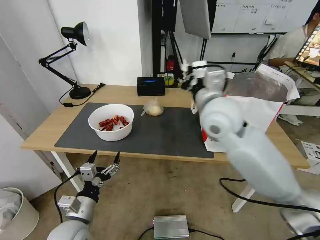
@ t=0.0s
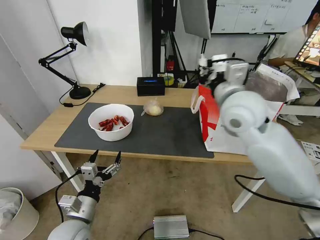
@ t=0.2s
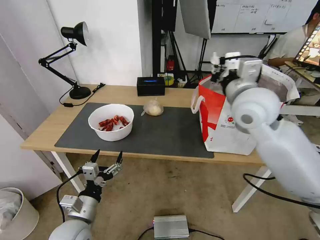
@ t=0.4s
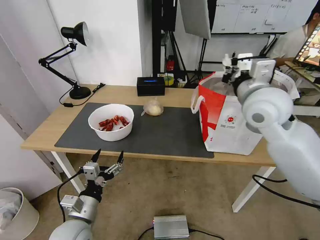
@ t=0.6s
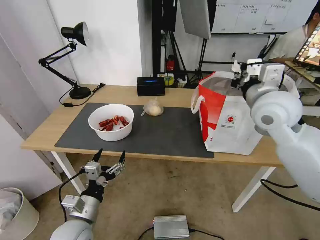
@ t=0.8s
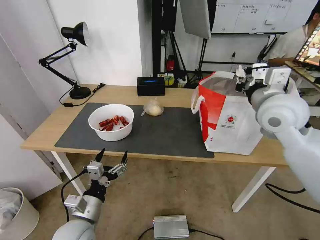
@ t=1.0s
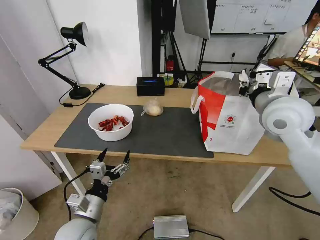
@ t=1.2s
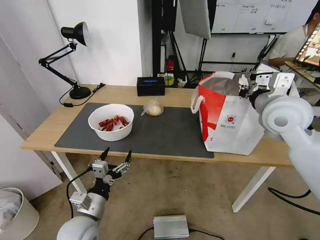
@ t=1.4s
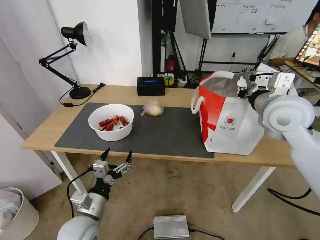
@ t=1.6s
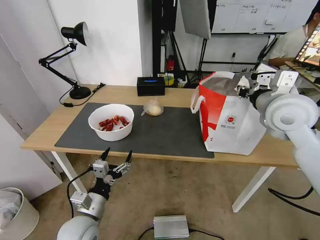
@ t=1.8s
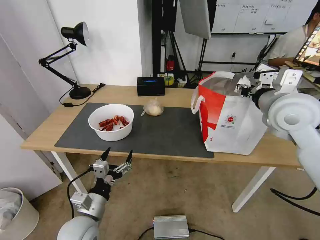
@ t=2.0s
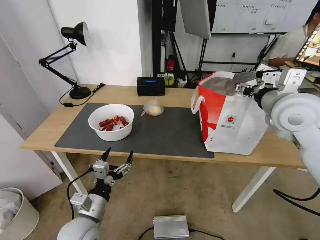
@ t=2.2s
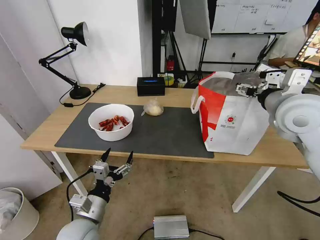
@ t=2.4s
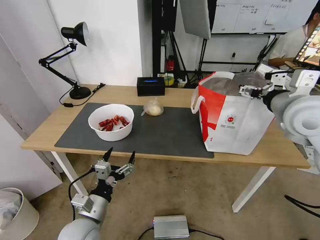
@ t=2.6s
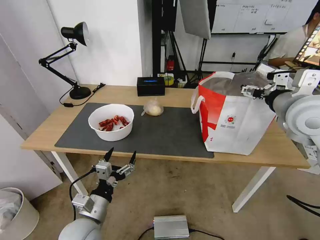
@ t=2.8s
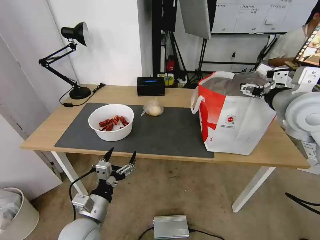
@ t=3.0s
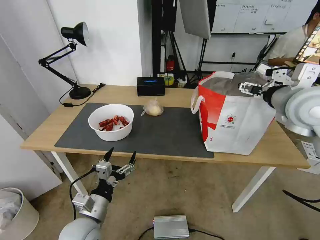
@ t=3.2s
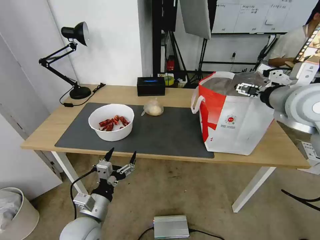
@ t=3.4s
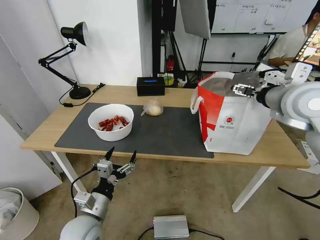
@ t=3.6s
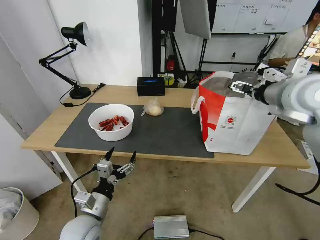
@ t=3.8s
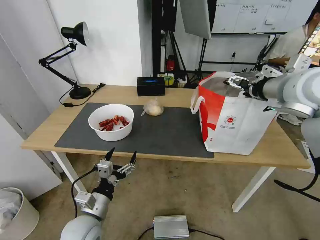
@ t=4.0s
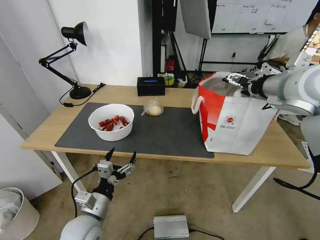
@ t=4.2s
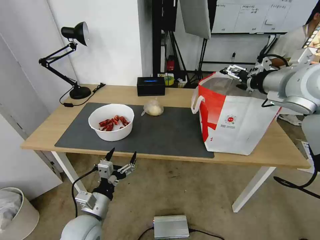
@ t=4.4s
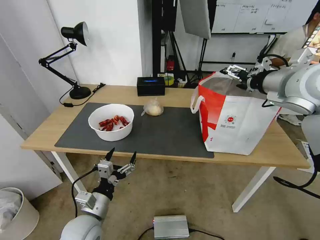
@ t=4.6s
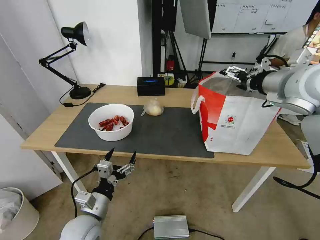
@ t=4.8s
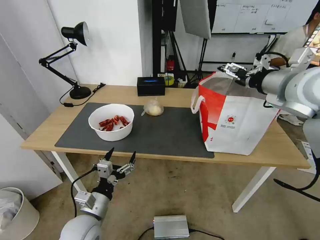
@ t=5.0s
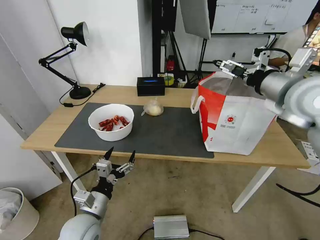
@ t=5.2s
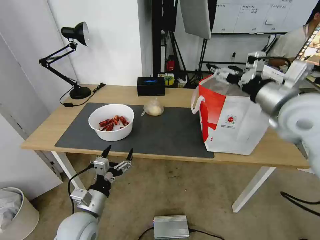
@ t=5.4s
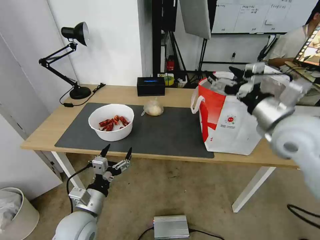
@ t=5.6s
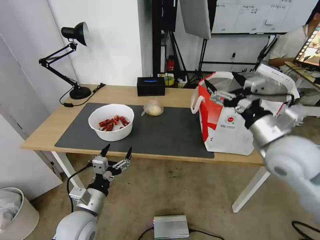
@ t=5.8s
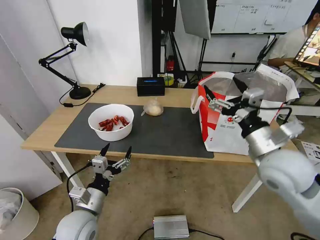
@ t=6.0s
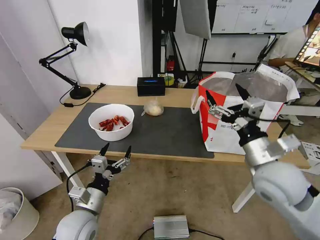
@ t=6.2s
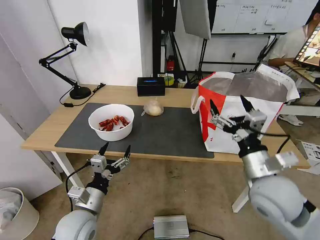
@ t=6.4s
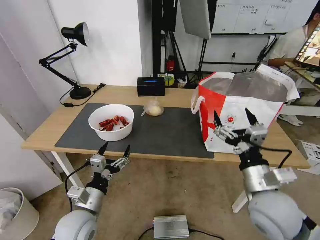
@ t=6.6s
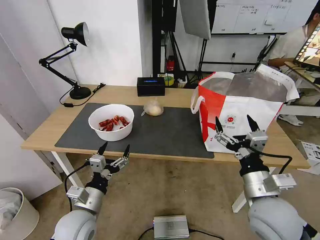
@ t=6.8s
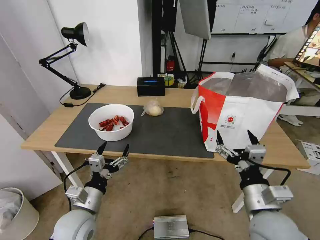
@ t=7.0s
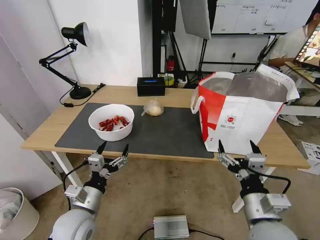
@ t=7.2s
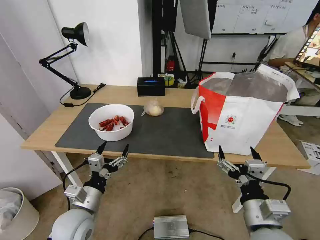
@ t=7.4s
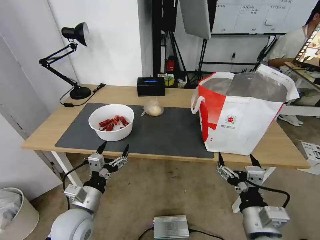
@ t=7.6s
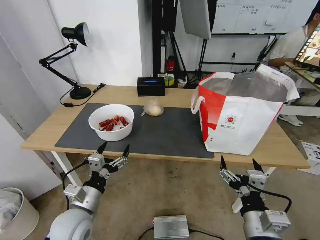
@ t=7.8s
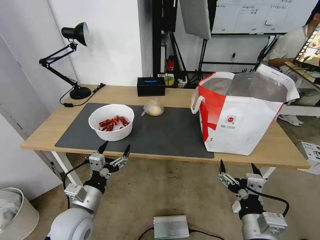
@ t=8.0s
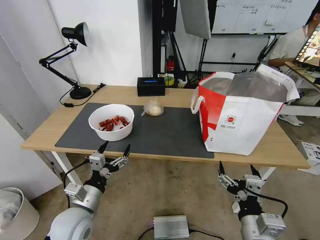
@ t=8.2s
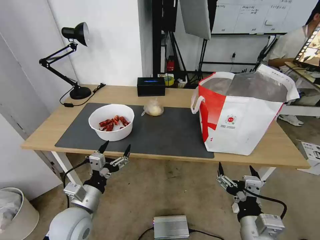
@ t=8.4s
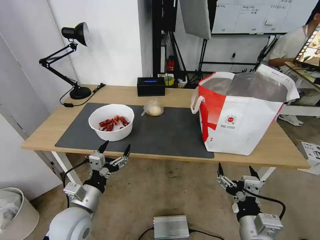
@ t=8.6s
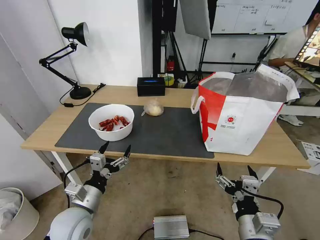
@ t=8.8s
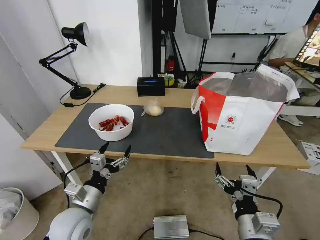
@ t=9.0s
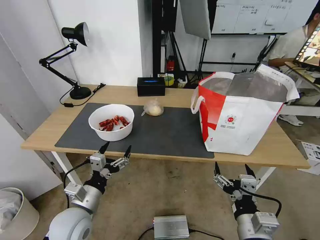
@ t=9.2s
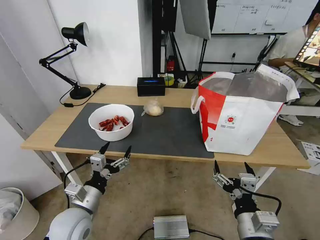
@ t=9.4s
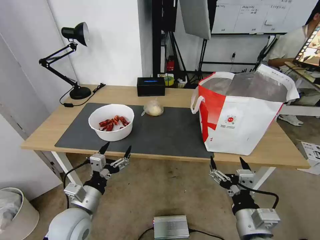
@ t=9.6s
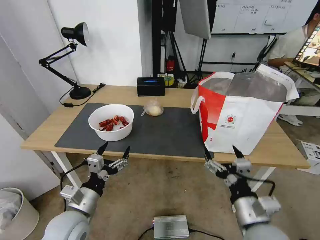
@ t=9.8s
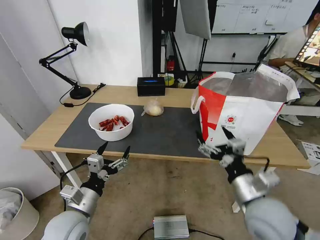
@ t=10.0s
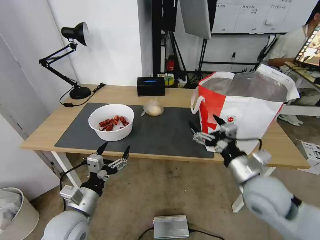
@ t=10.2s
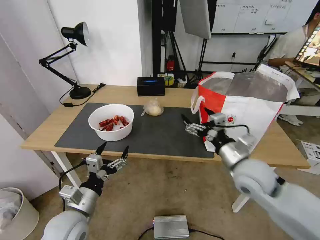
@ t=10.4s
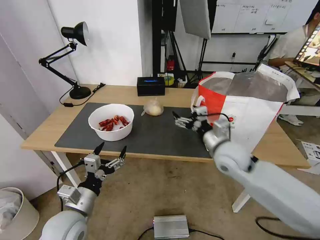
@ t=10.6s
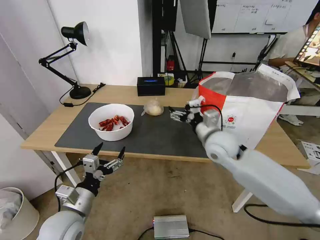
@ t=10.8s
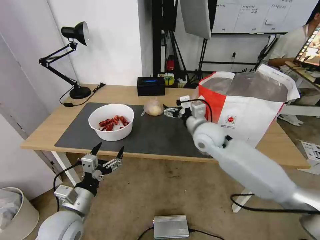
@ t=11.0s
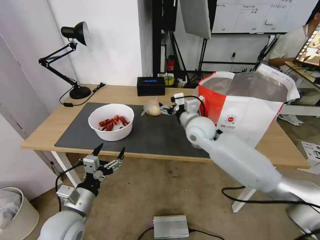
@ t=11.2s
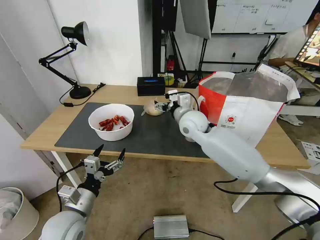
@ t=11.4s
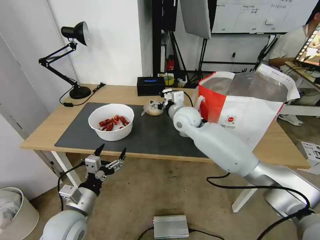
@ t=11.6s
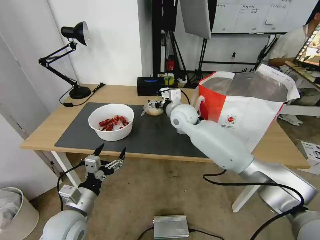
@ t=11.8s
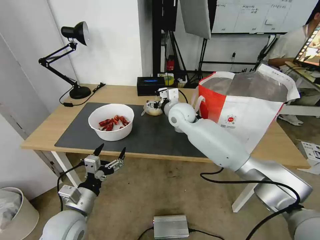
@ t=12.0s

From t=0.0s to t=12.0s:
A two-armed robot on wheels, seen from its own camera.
Task of the whole recording: Pick up the trash from the table and place it into the takeout bag.
From t=0.0s to t=1.6s: The right gripper shifts approximately 15 cm to the right.
From t=1.6s to t=3.0s: The right gripper opens its fingers.
From t=3.0s to t=4.4s: The right gripper changes place by about 5 cm.
From t=4.4s to t=6.0s: The right gripper is displaced downward and backward by roughly 20 cm.
From t=6.0s to t=7.6s: The right gripper goes some 20 cm backward and downward.
From t=7.6s to t=9.0s: The grippers stay close to where they were, moving slightly.
From t=9.0s to t=10.4s: The right gripper moves forward, roughly 20 cm.
From t=10.4s to t=12.0s: The right gripper goes some 30 cm forward and to the left.

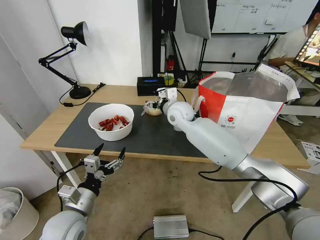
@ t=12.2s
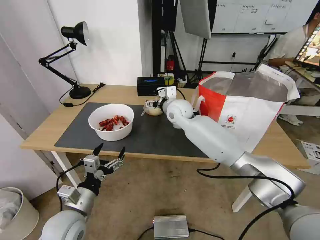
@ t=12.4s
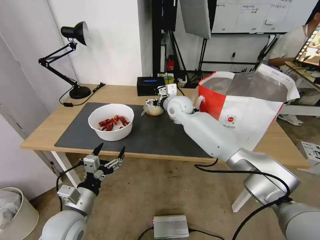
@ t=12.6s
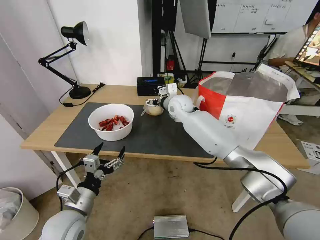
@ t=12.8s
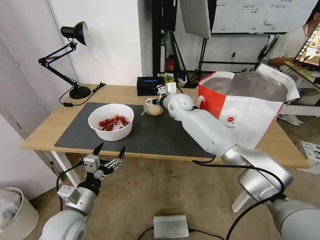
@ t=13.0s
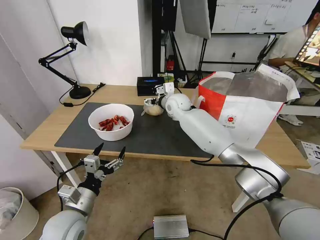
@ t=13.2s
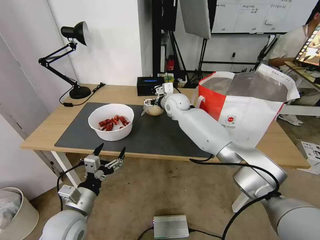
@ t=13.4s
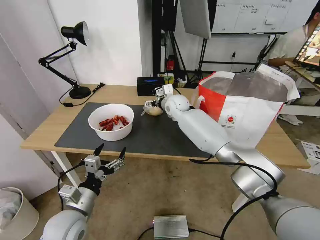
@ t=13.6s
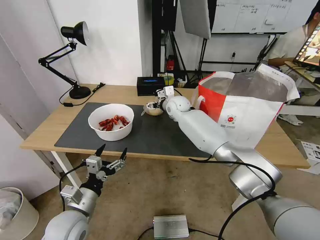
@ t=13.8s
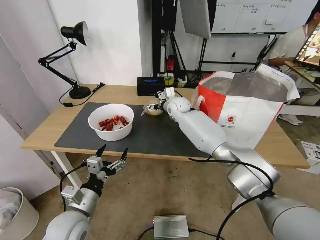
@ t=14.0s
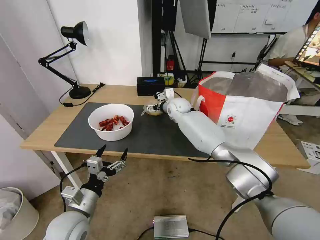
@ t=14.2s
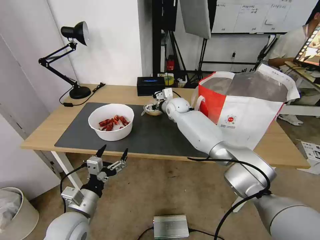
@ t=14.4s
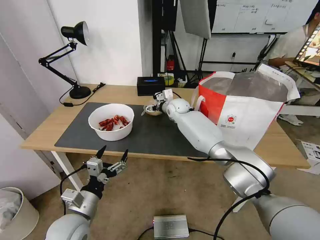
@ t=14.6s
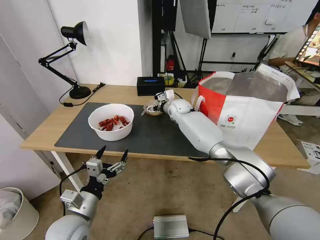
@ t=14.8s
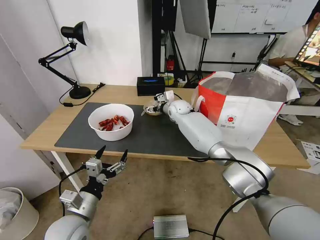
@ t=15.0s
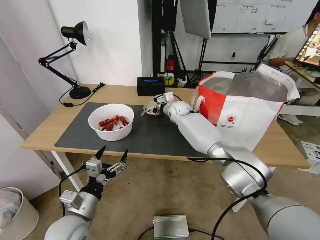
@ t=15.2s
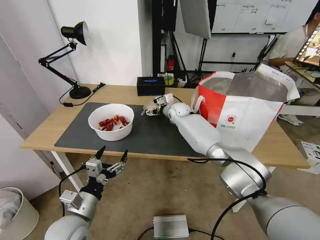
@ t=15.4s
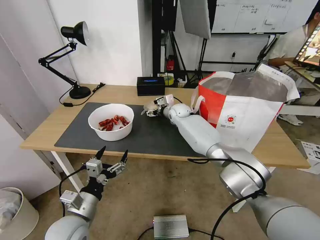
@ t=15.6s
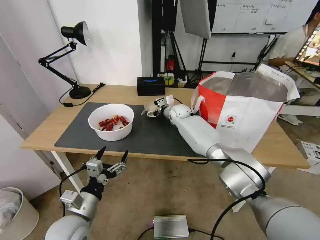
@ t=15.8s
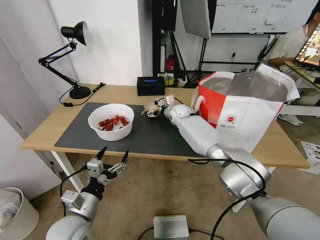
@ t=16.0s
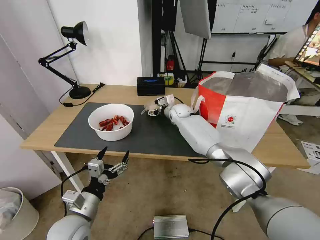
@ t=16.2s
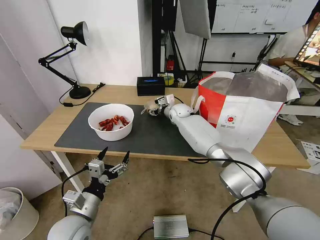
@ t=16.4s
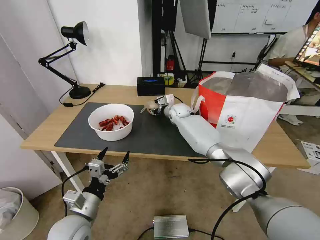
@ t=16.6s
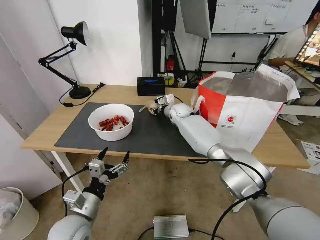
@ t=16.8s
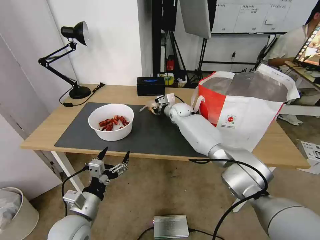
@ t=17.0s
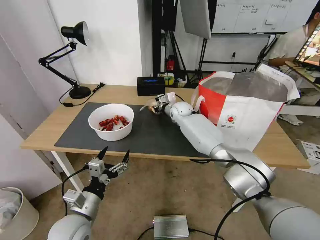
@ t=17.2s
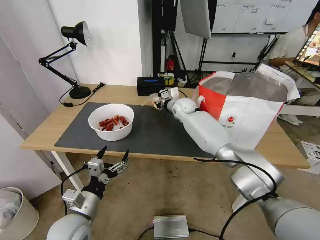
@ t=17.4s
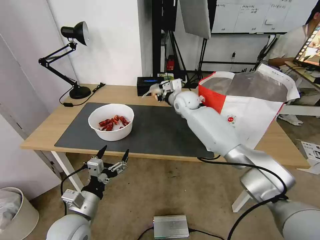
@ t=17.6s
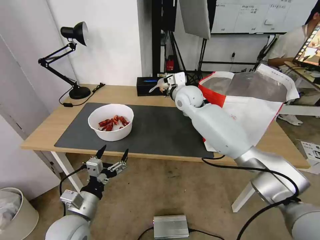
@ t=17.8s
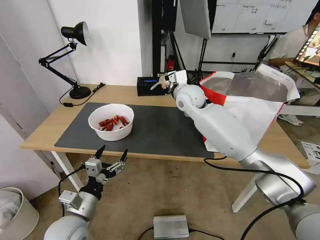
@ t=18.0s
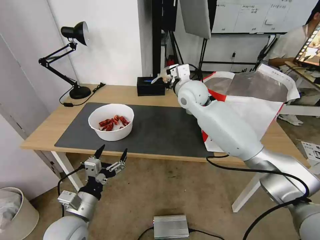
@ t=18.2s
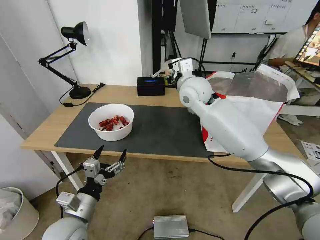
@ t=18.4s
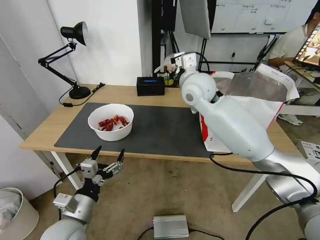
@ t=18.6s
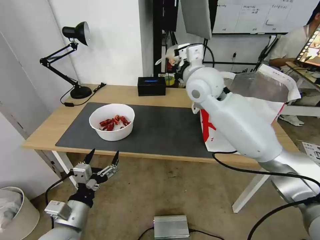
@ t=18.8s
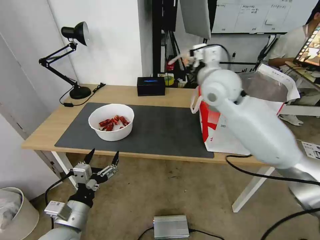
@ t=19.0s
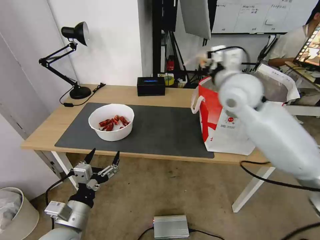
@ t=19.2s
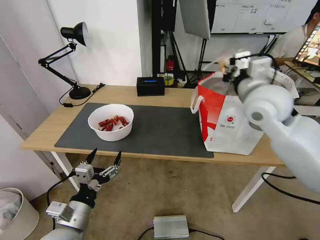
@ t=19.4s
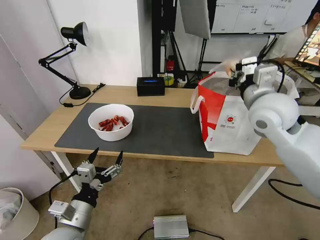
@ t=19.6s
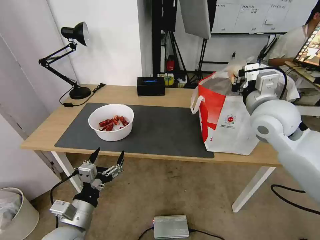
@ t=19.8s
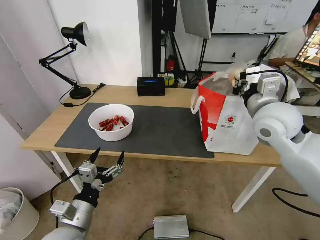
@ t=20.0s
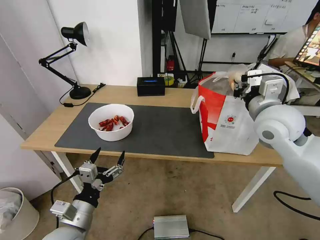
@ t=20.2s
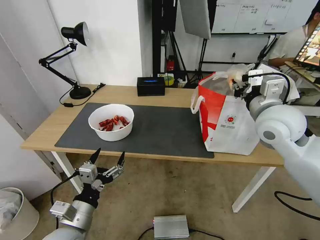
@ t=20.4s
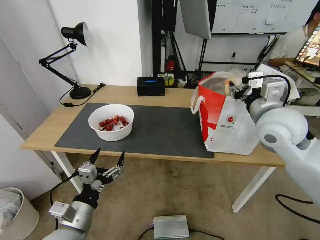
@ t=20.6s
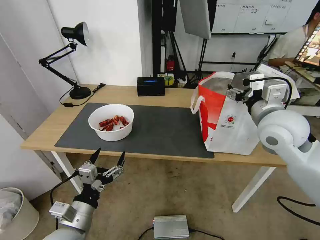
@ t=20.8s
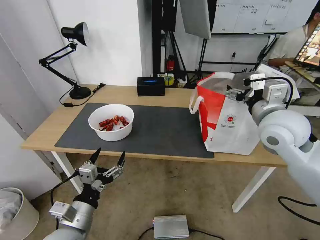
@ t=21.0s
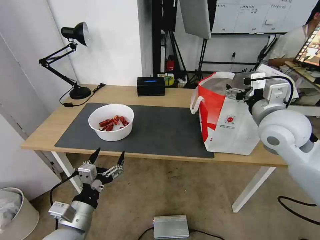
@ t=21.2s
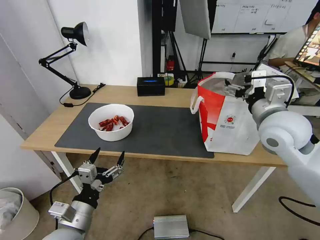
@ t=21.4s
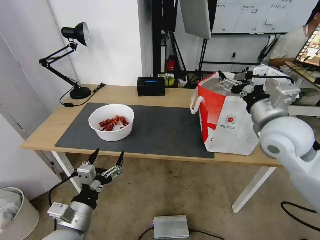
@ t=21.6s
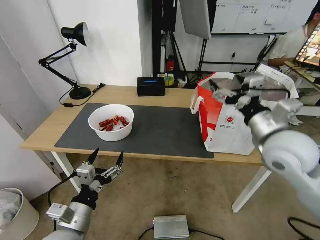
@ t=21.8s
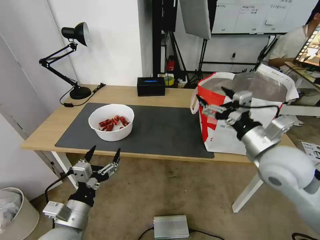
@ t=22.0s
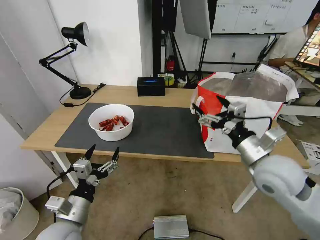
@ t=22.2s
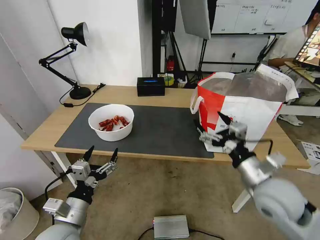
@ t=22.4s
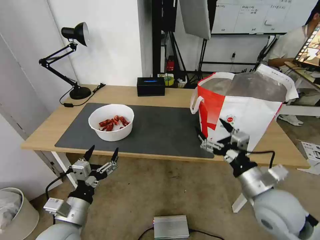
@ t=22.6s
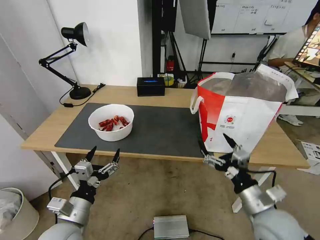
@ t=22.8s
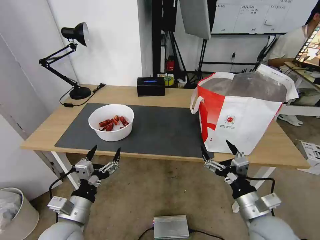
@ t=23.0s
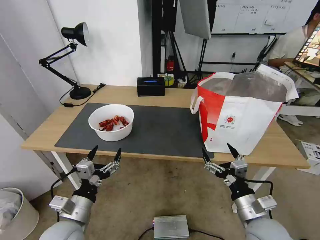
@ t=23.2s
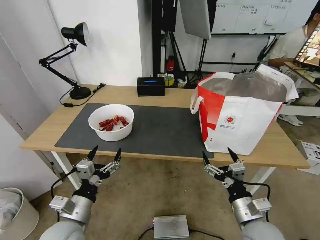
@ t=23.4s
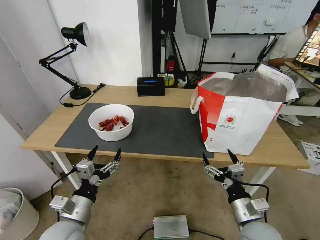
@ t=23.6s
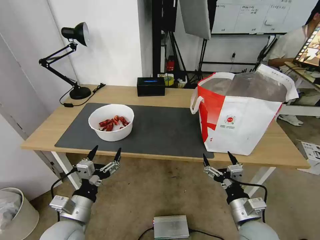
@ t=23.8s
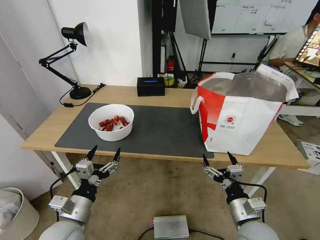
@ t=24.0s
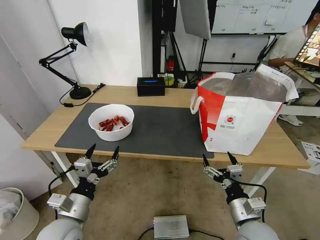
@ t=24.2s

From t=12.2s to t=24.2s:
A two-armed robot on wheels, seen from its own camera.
Task of the whole recording: Pick up the trash from the table and place it into the takeout bag.
From t=12.2s to t=13.8s: The right gripper goes approximately 10 cm forward.
From t=13.8s to t=15.2s: There are only small adjustments of the grippers.
From t=15.2s to t=16.6s: The right gripper closes up.
From t=16.6s to t=18.2s: The right gripper goes approximately 20 cm upward and backward, and closes.
From t=18.2s to t=19.8s: The right gripper travels to the right and backward by about 25 cm.
From t=19.8s to t=21.2s: The right gripper opens its fingers.
From t=21.2s to t=22.6s: The right gripper shifts some 20 cm downward and backward.
From t=22.6s to t=24.2s: The right gripper travels downward by approximately 10 cm.
